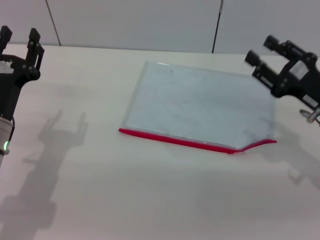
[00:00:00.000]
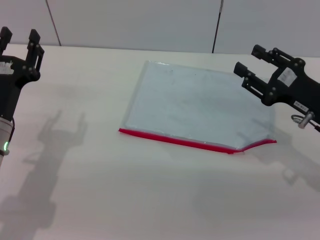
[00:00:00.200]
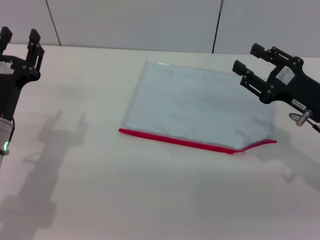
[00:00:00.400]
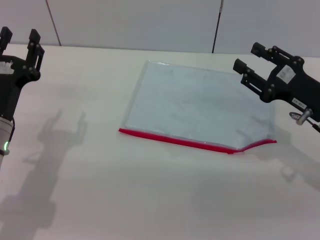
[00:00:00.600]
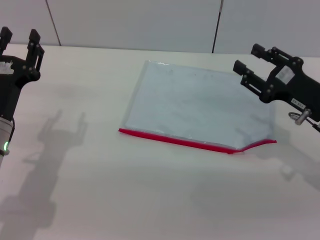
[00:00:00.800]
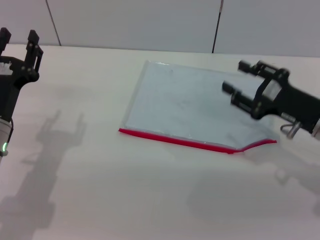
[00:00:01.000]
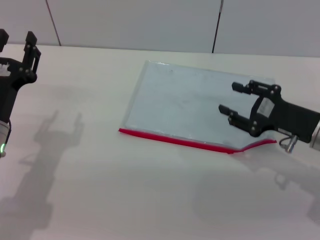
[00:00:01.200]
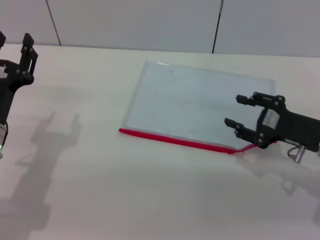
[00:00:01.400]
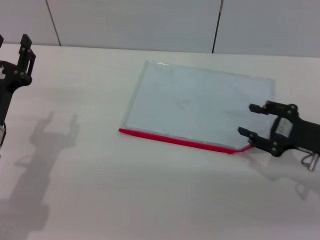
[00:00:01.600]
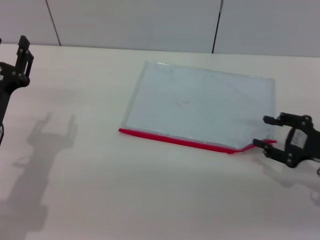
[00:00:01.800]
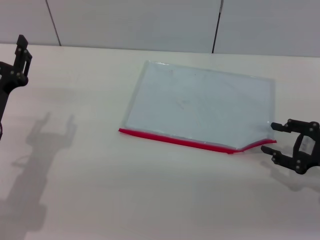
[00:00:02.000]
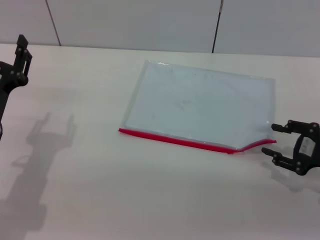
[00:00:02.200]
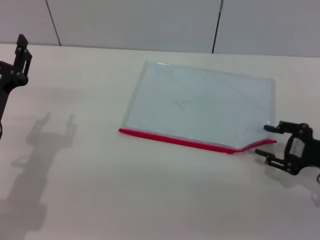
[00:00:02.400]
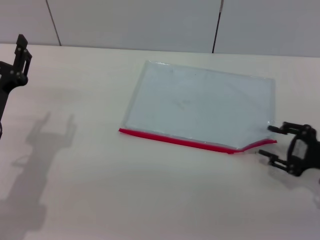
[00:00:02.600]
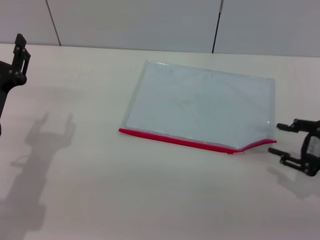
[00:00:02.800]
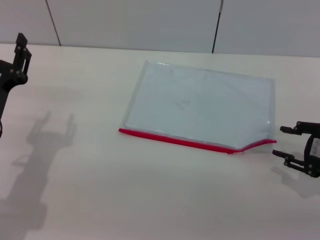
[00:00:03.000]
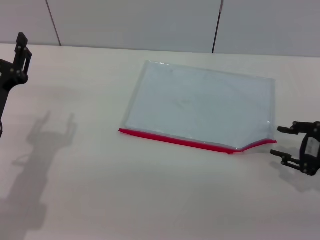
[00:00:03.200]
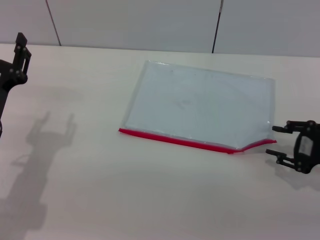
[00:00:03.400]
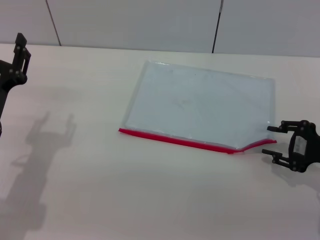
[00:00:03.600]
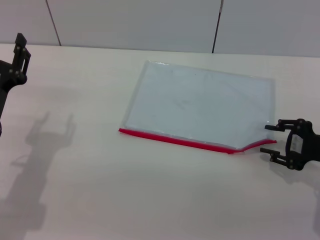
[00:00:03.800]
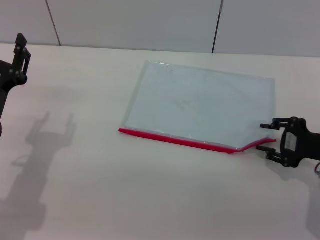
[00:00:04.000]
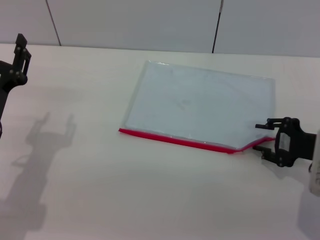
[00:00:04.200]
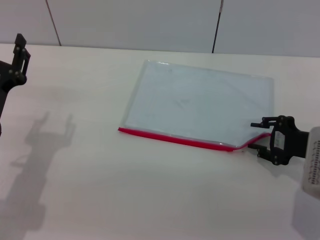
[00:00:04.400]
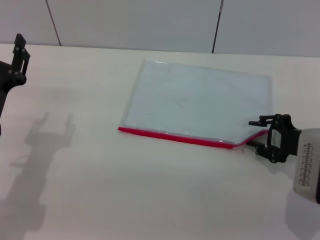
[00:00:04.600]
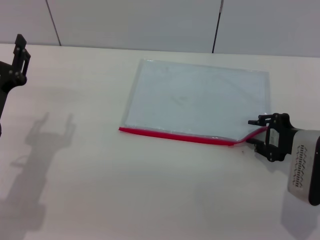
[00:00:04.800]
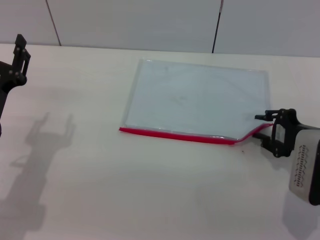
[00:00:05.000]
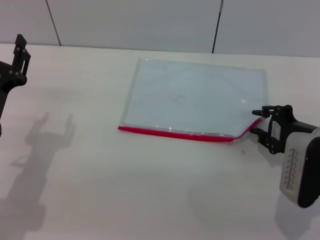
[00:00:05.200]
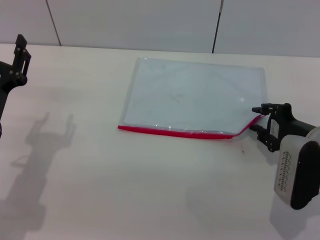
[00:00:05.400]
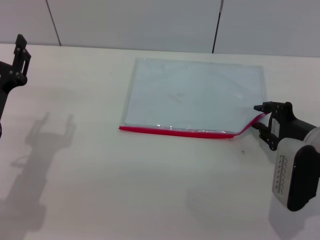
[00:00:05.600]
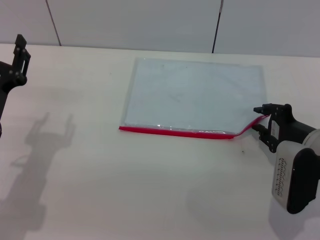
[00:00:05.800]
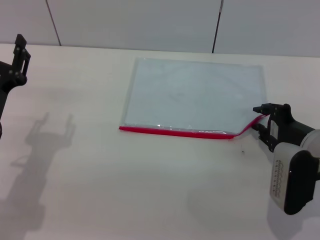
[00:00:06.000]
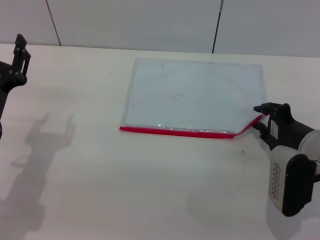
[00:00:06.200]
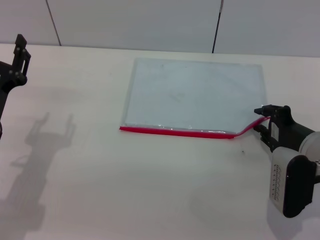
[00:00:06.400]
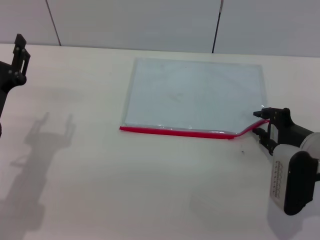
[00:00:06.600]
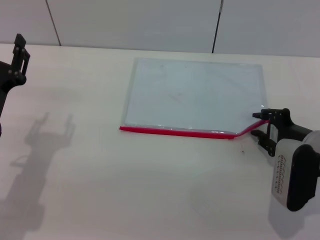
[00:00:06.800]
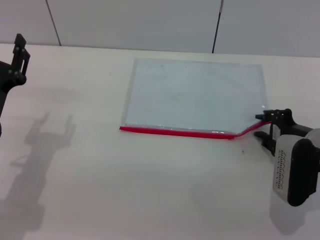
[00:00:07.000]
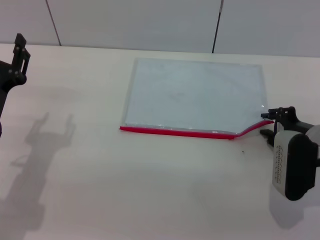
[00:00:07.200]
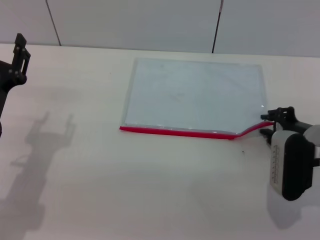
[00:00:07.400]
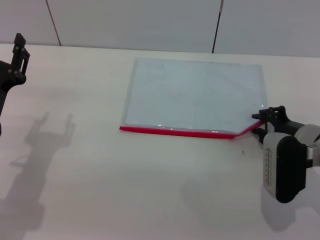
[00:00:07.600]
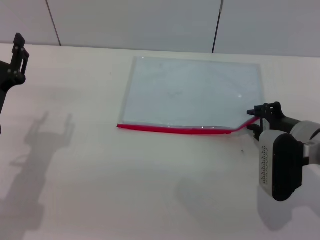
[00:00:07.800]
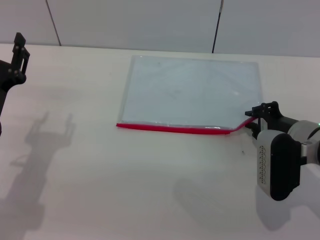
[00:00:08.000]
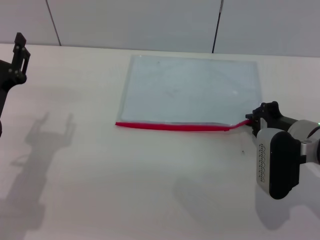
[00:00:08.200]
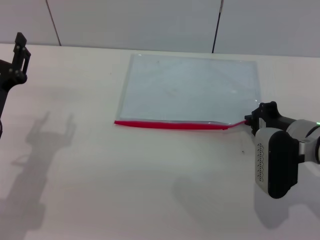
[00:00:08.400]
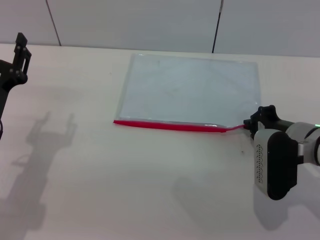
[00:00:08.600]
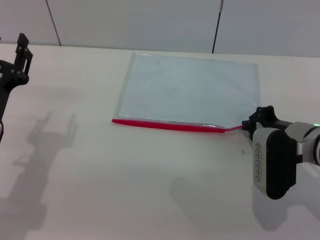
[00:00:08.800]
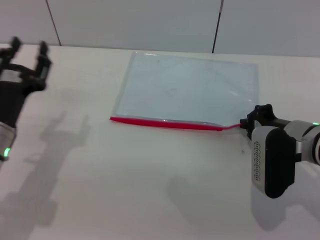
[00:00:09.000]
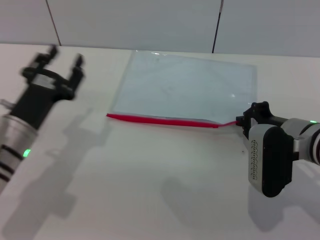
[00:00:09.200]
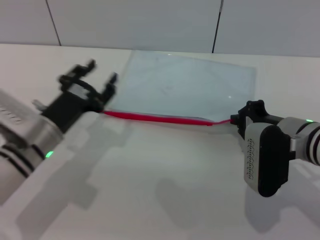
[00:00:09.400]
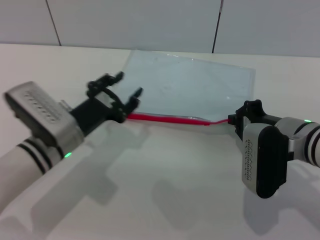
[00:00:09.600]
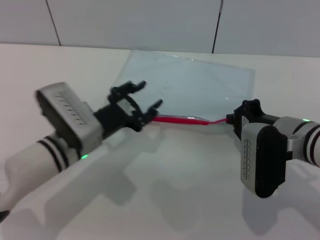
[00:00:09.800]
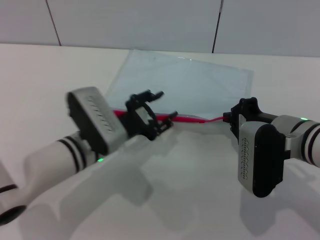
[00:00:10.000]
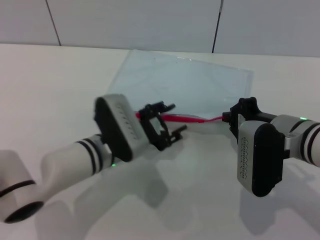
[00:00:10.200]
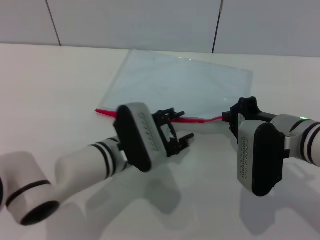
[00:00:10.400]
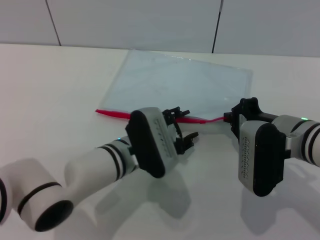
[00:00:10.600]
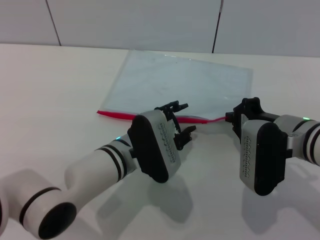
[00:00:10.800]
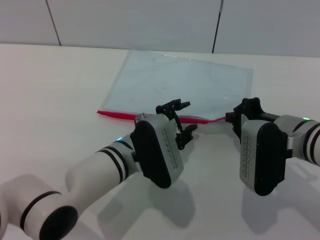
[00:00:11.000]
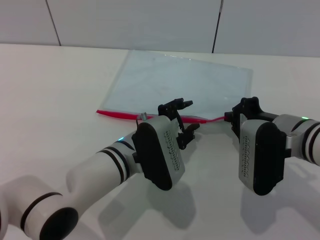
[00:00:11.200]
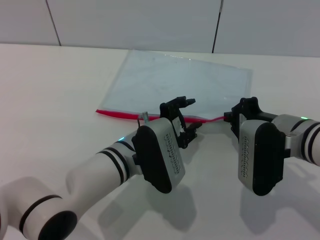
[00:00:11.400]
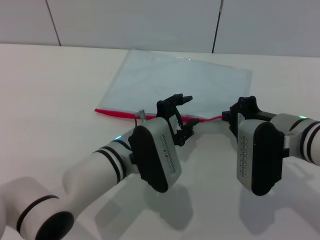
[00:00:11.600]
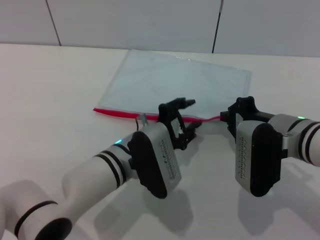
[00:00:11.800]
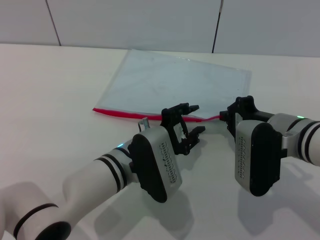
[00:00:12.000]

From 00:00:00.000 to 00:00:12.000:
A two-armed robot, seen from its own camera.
Step, from 00:00:00.000 to 00:00:09.200: Pick up the transparent plastic bag with the right gripper.
From 00:00:01.600 to 00:00:03.000: The right gripper shifts by approximately 5 cm.
From 00:00:03.000 to 00:00:04.400: The right gripper is displaced to the left by about 5 cm.
From 00:00:06.000 to 00:00:07.600: The grippers move only a little.
From 00:00:07.600 to 00:00:09.000: The right gripper closes.
From 00:00:09.000 to 00:00:10.400: The left gripper goes some 15 cm to the right.
From 00:00:10.400 to 00:00:12.000: The grippers stay close to where they were, moving slightly.

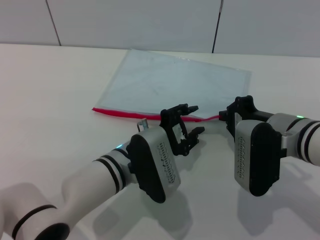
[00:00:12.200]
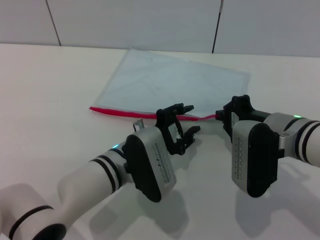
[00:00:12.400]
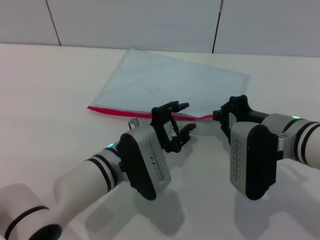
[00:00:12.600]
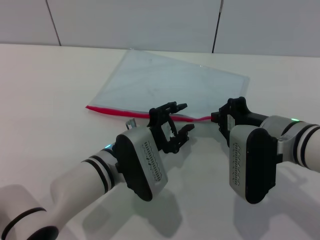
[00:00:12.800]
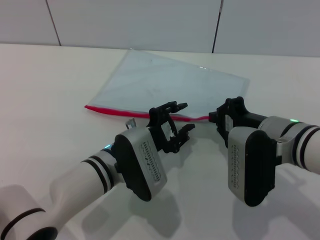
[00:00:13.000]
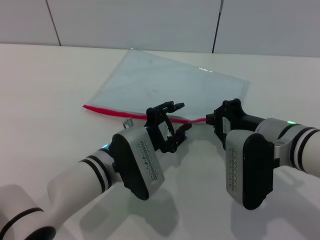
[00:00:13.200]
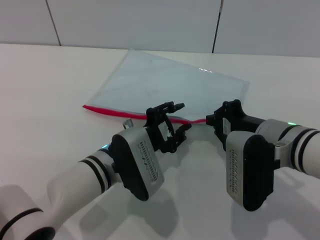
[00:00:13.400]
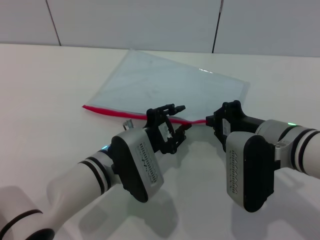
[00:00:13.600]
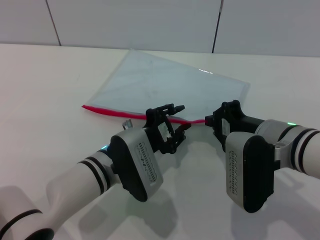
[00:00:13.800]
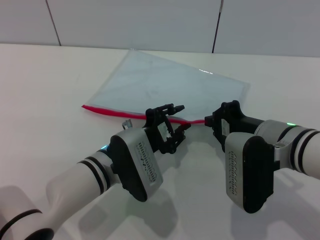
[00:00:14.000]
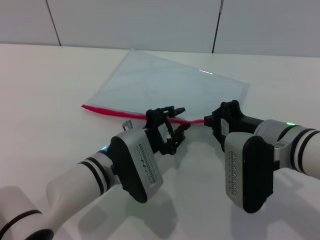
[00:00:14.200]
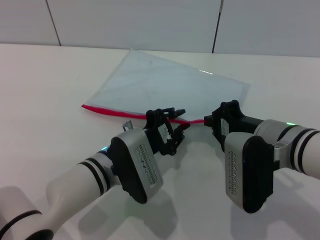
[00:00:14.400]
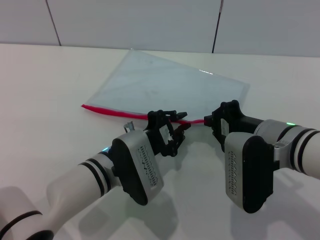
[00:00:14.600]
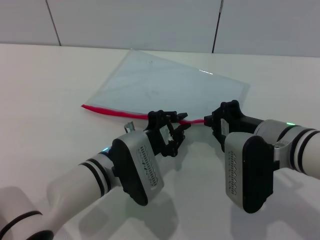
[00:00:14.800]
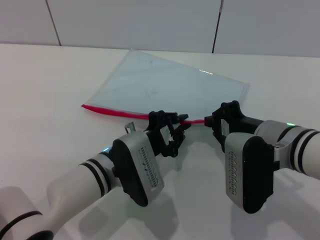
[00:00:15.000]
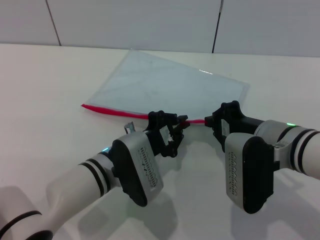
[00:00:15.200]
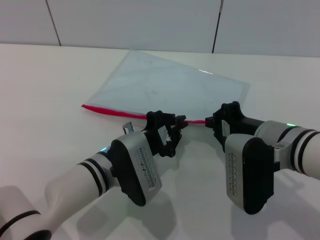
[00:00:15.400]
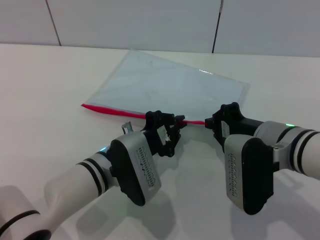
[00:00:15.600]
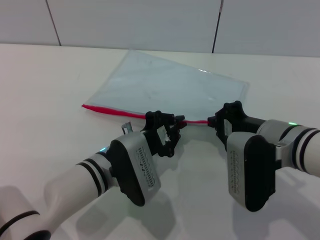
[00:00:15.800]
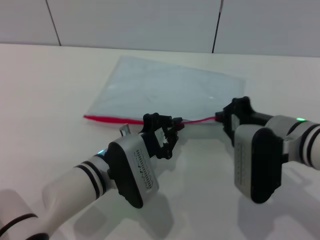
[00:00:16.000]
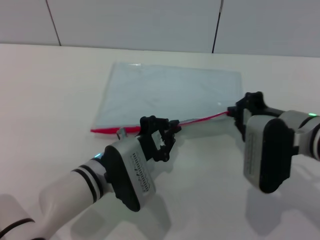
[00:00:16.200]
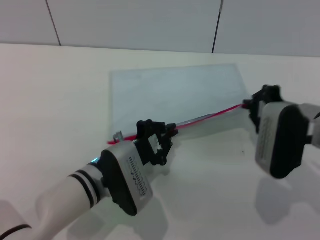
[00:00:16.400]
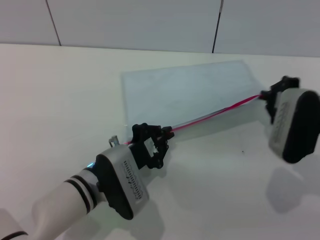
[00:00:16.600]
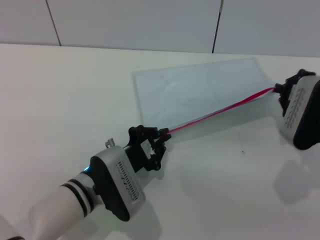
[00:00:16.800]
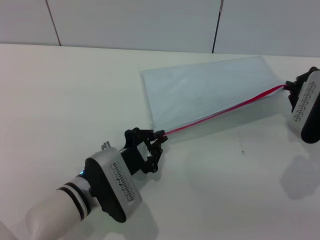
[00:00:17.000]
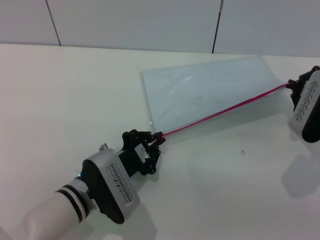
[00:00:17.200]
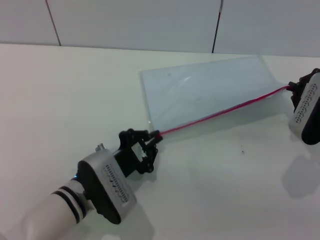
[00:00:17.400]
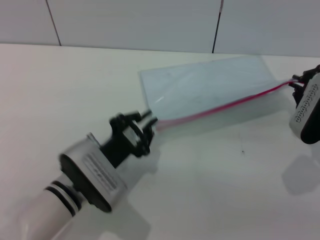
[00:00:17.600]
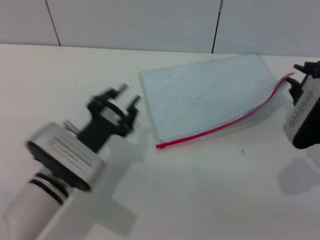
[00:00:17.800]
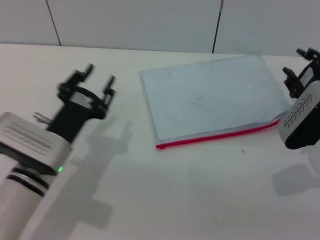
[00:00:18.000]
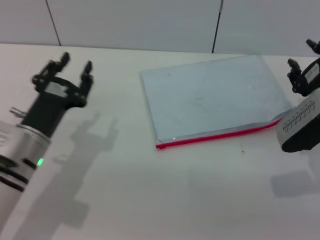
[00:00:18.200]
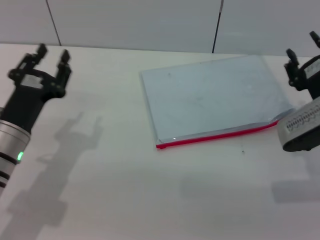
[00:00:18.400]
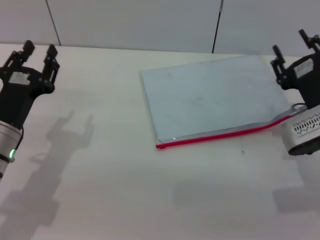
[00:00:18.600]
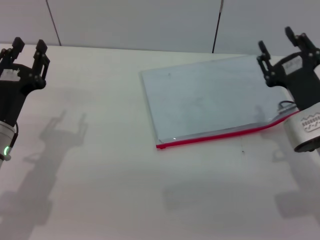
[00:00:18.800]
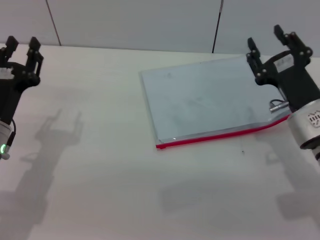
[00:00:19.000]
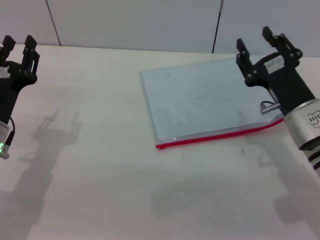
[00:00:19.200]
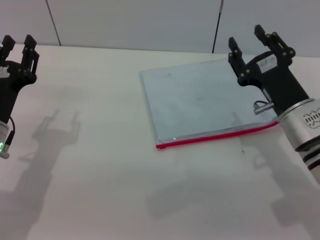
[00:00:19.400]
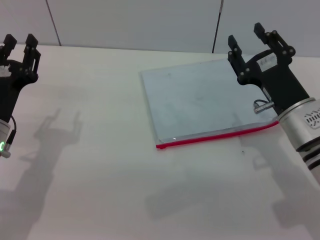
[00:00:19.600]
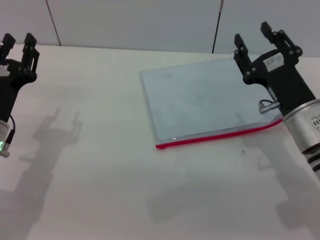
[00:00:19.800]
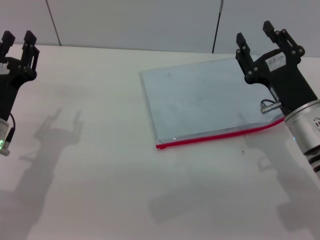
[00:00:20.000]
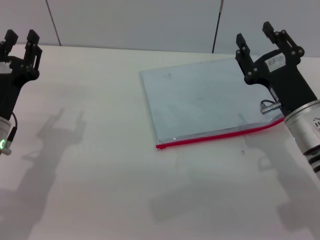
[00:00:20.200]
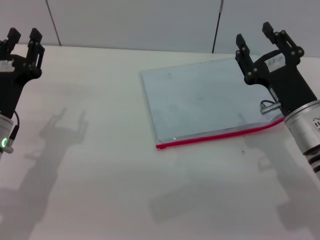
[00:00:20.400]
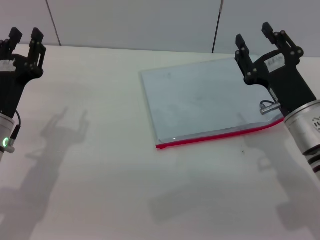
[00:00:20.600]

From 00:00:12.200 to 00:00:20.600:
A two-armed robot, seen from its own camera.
Step, from 00:00:12.200 to 00:00:17.400: Pulling up the zipper on the transparent plastic bag with the left gripper to close it.
Step, from 00:00:17.800 to 00:00:19.000: Place the transparent plastic bag.
From 00:00:12.200 to 00:00:13.600: The grippers move only a little.
From 00:00:13.600 to 00:00:15.000: The left gripper closes.
From 00:00:15.000 to 00:00:16.400: The right gripper shifts by roughly 5 cm.
From 00:00:16.400 to 00:00:17.800: The right gripper goes some 5 cm to the right.
From 00:00:17.800 to 00:00:19.200: The left gripper is displaced to the left by approximately 10 cm, and opens its fingers. The right gripper shifts approximately 5 cm to the left, and opens.
From 00:00:19.200 to 00:00:20.600: Neither gripper changes place.
